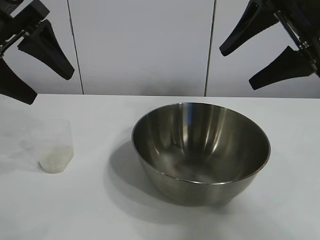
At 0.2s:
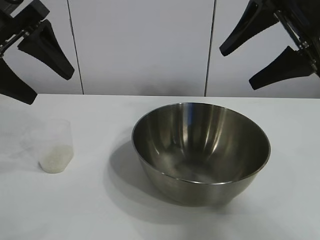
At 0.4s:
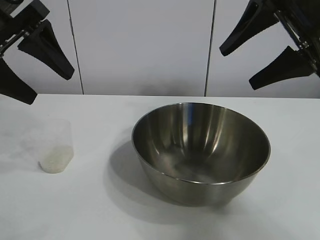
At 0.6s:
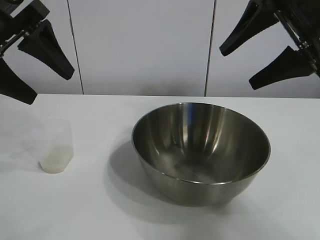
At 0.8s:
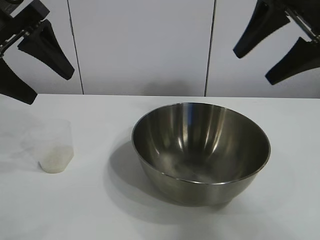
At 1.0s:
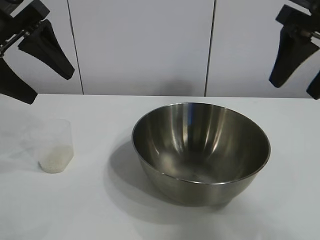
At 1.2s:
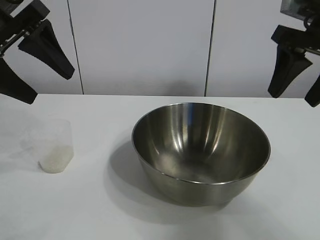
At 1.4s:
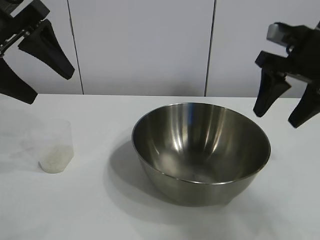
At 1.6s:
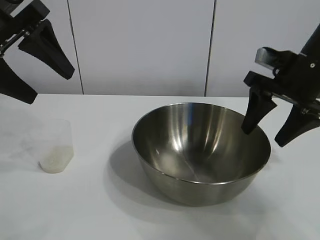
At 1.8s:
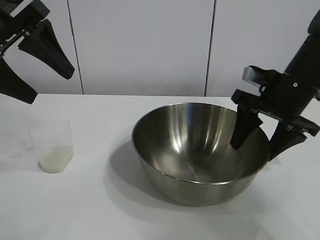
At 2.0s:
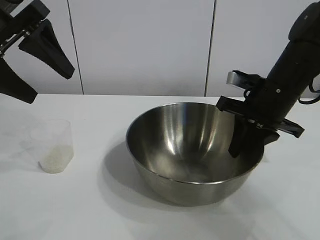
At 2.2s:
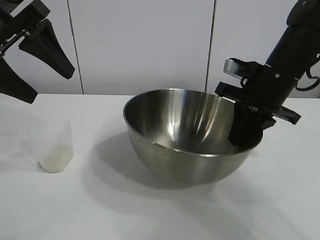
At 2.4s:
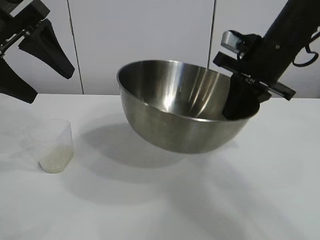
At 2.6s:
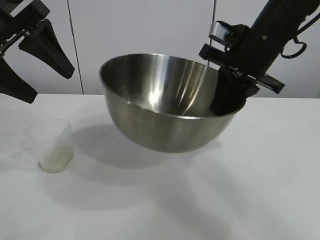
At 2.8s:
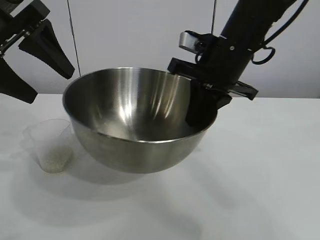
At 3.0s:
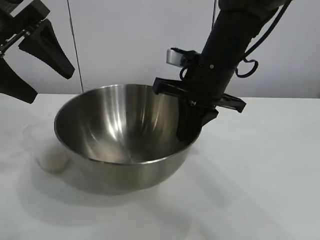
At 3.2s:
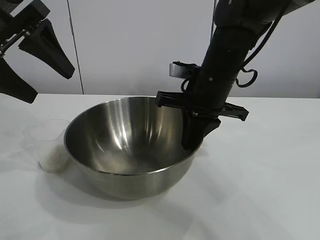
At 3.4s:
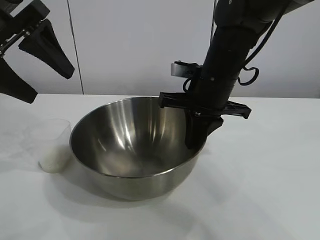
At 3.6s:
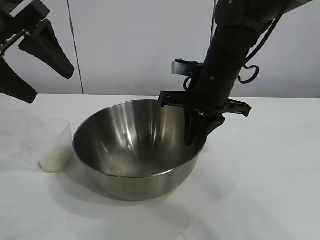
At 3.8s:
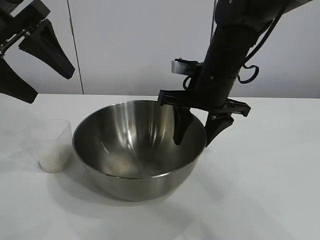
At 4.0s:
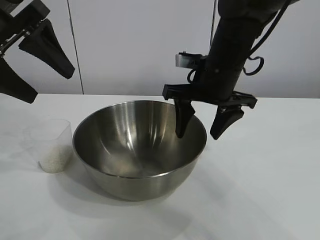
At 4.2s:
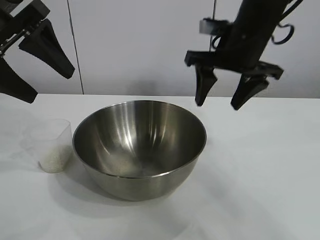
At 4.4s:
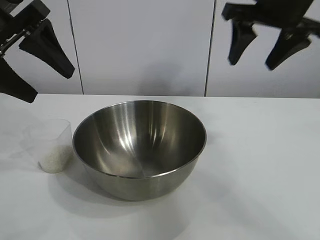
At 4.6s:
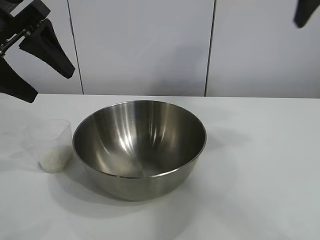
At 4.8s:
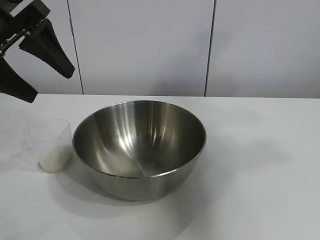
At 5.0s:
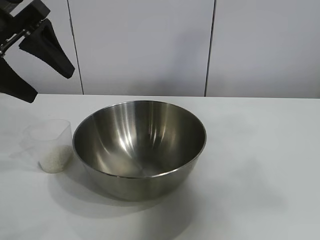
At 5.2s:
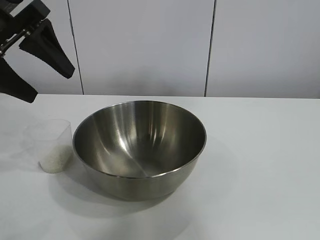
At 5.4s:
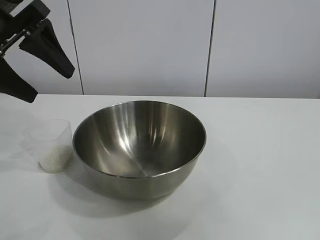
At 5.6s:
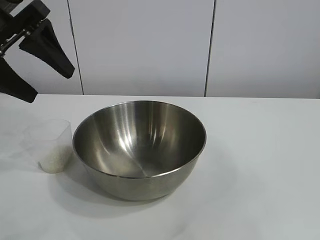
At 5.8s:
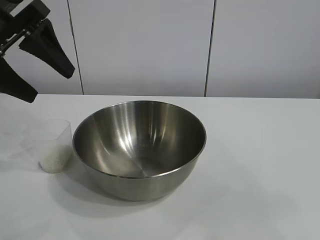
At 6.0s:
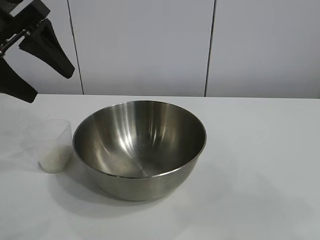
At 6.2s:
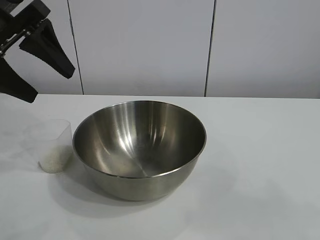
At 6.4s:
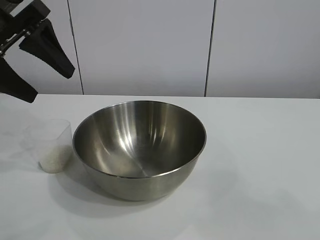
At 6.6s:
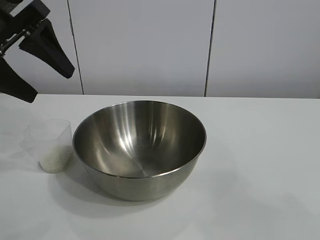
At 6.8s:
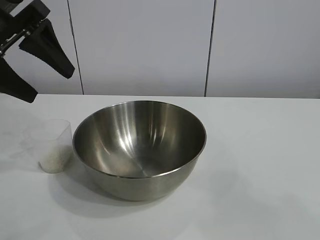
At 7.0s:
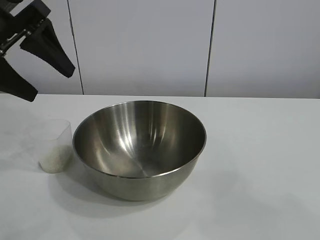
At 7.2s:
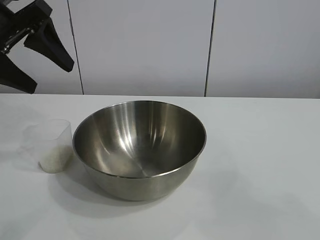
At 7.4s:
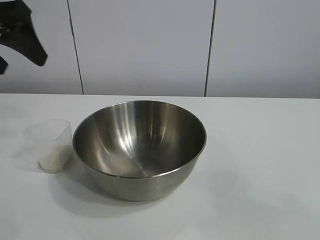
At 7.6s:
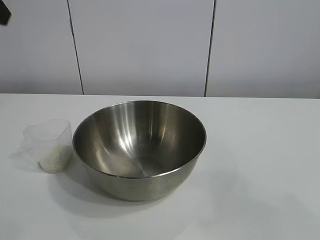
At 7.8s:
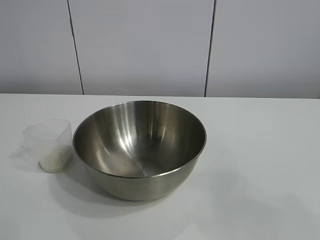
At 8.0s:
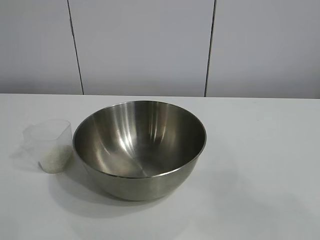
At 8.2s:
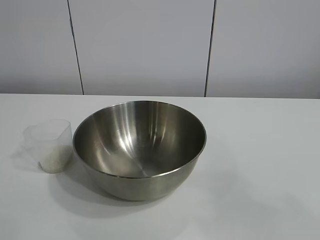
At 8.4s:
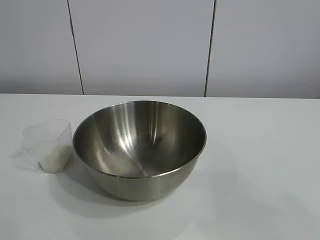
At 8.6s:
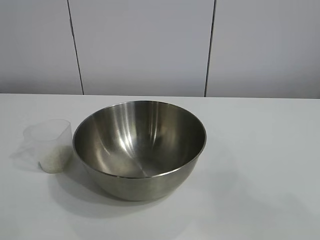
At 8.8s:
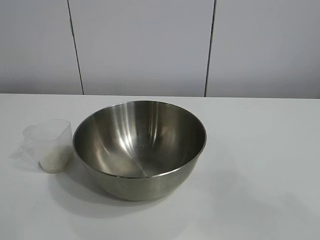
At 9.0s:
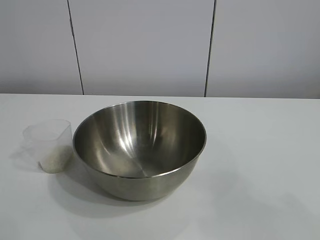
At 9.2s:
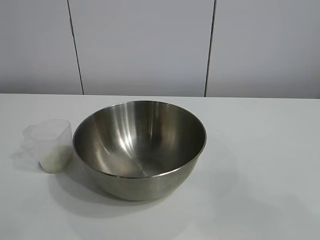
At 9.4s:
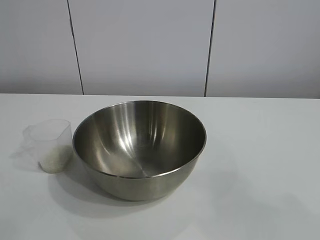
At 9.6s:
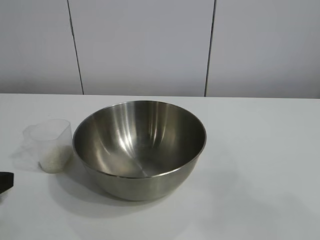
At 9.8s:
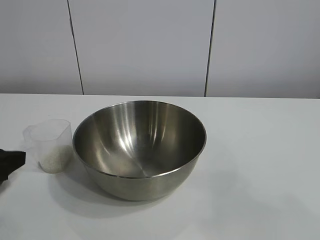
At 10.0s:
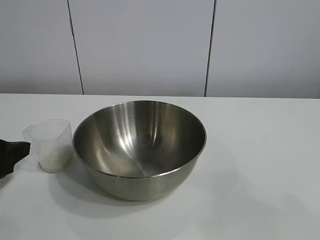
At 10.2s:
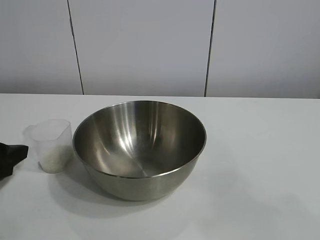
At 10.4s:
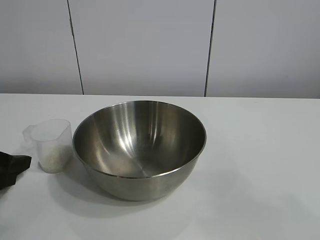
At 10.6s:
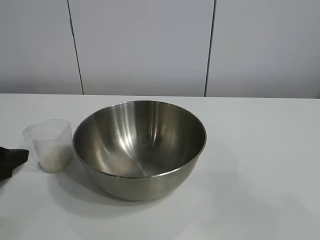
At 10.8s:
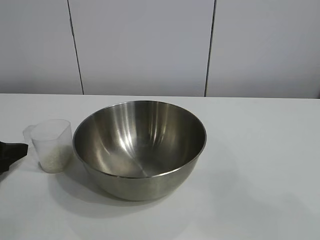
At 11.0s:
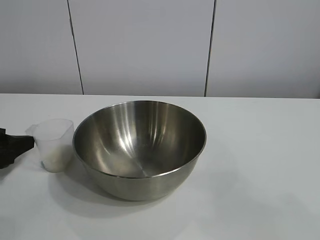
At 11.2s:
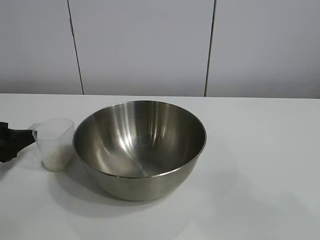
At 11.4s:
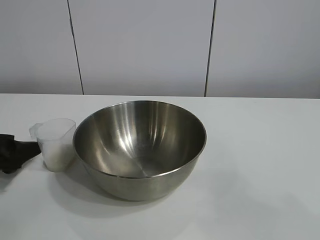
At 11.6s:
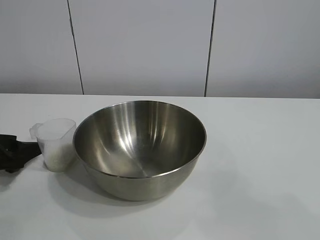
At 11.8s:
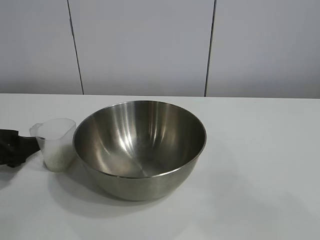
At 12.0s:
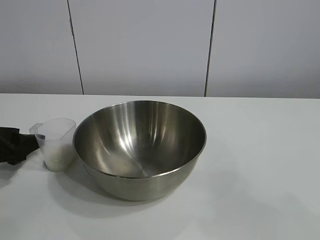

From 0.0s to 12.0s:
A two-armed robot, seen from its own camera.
Task of the whole recording: the right gripper grasp the rice container and place it in the center of the table, the left gripper grasp the rice scoop and pour the rice into the rice container.
Step, from 0.6s to 4.0s: Move the bowl in the center of view with right gripper.

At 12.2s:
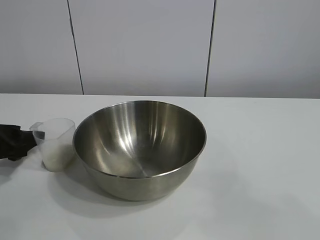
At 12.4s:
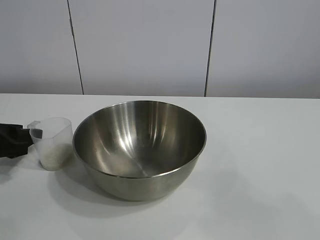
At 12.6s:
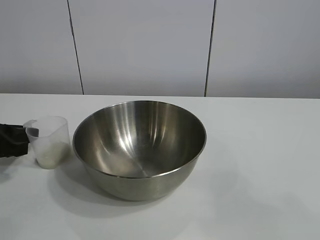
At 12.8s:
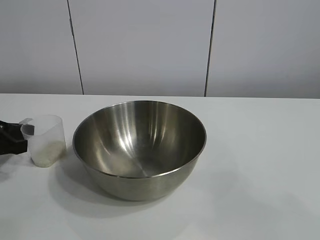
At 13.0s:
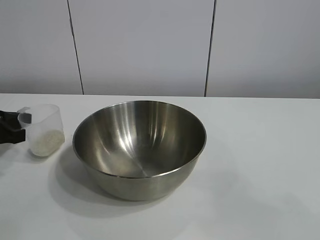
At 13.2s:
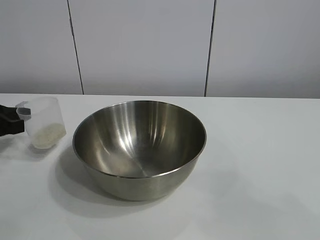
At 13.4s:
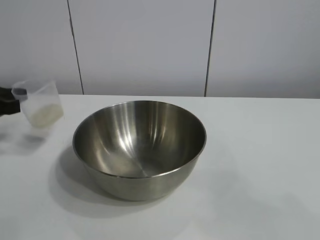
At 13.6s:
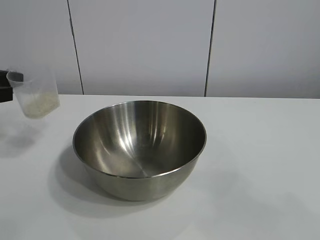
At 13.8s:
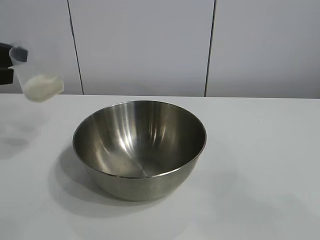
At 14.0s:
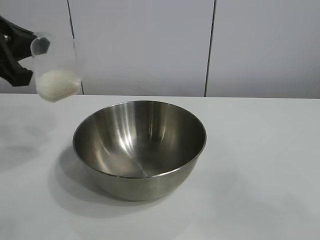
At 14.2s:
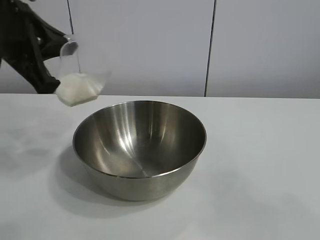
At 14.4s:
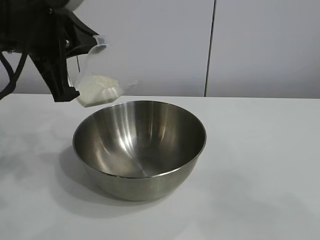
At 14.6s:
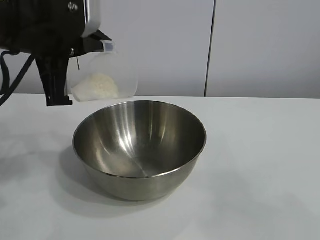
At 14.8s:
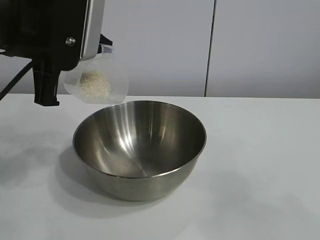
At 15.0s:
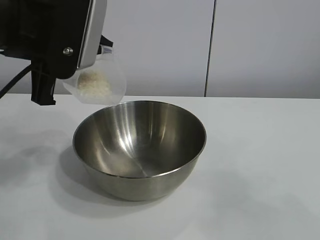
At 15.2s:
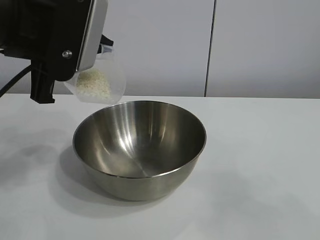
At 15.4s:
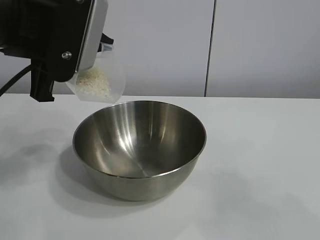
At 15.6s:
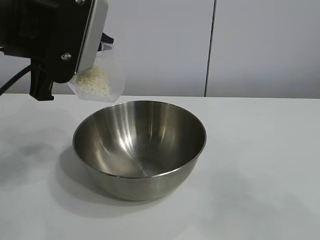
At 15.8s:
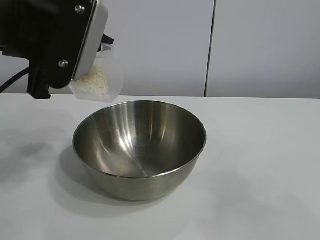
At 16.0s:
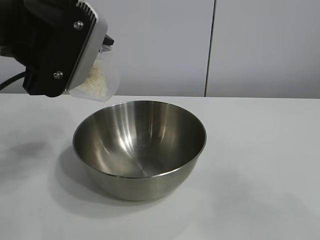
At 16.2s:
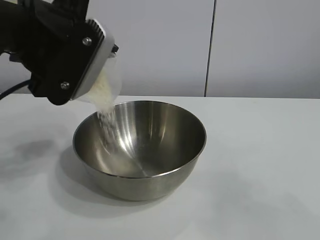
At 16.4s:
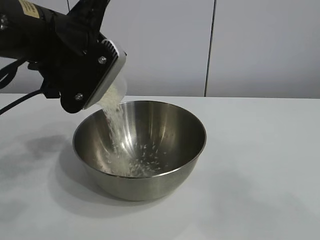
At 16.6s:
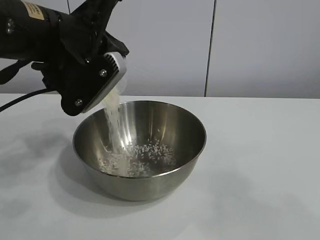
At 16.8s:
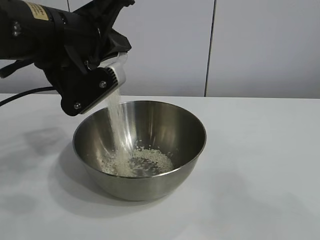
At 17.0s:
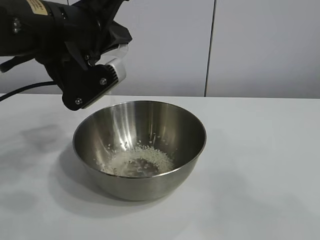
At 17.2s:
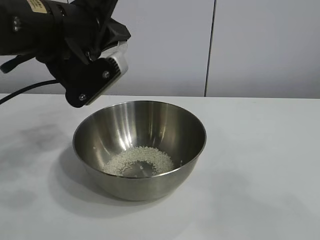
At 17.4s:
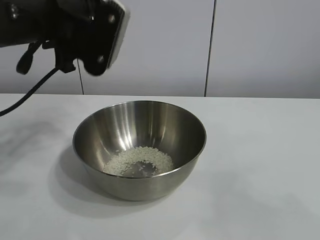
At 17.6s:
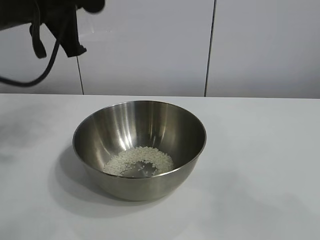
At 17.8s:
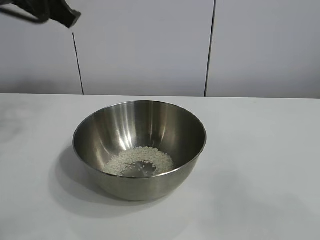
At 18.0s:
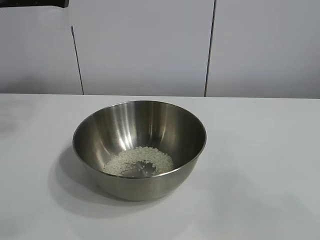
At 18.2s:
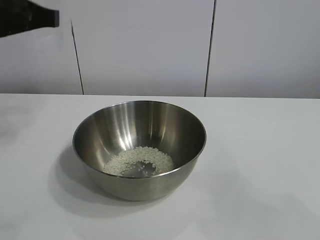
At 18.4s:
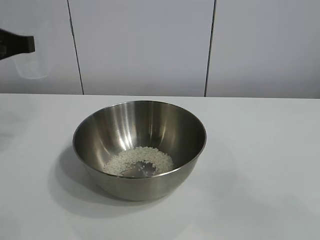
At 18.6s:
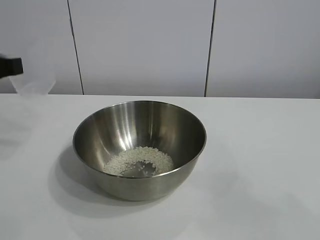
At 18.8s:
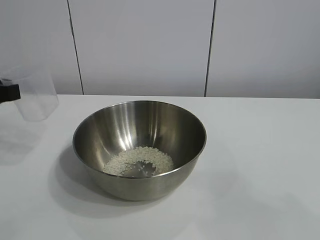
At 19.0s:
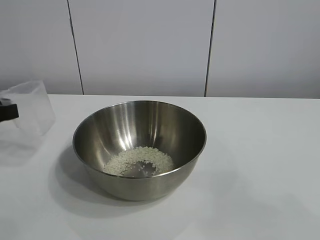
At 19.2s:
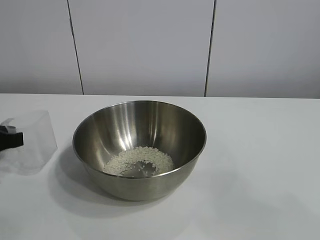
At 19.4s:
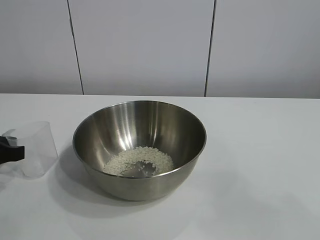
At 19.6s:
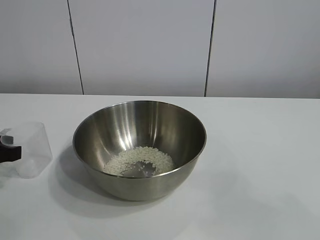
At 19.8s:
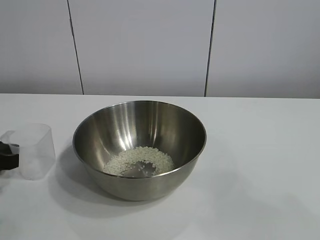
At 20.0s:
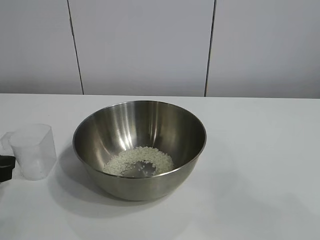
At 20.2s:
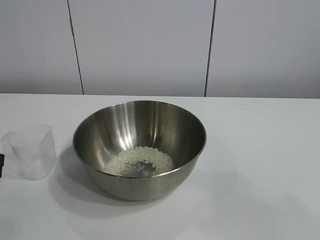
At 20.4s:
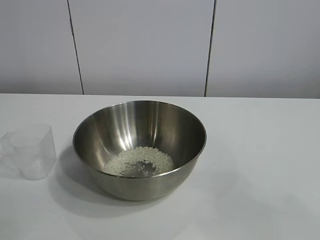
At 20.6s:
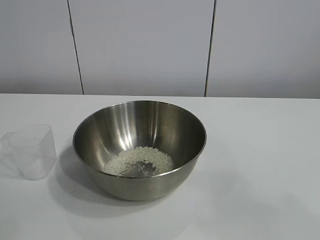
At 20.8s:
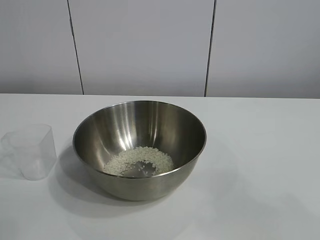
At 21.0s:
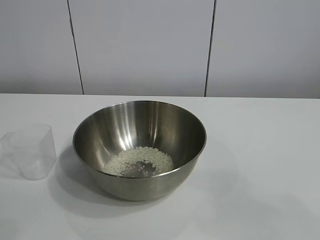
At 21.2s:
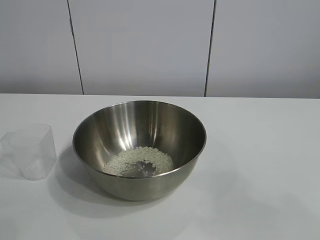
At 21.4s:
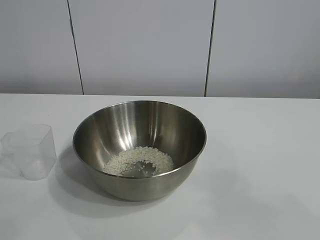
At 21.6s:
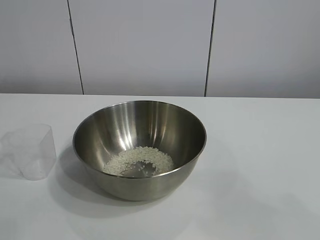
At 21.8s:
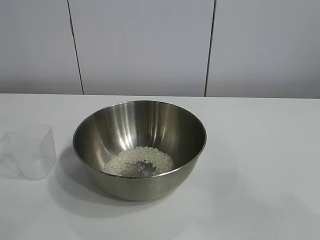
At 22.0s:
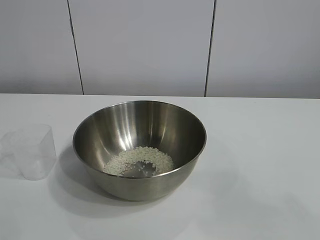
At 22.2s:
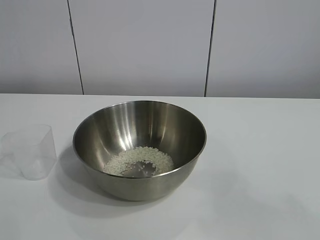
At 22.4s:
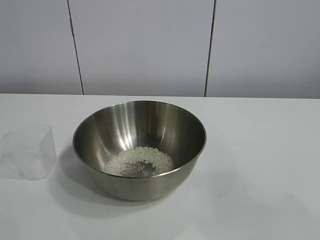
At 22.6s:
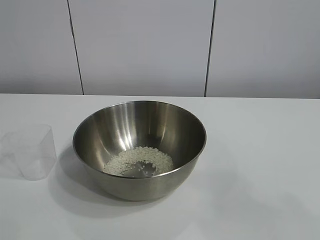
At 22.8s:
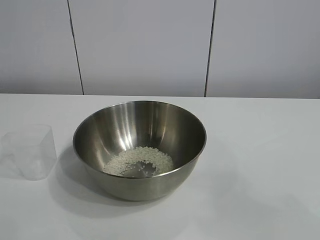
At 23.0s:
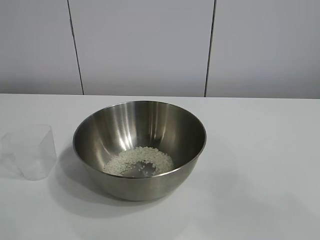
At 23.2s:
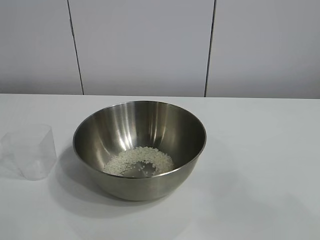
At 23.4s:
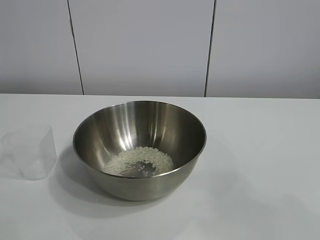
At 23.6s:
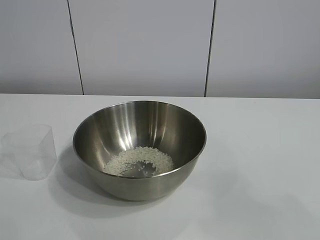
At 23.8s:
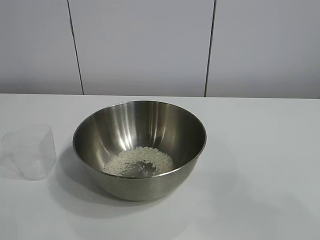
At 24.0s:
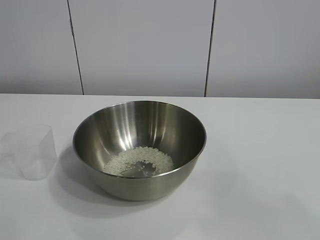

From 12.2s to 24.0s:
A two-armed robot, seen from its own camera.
Task of the whole recording: the right gripper grasp the rice container and place it in the center of the table, the left gripper grasp the rice scoop and pour the rice into the rice container.
Step, from 13.0s to 17.0s: Pour the rice from the cup into the bowl with the left gripper.
Step, from 17.2s to 19.8s: Place the cup on the table with the left gripper.
